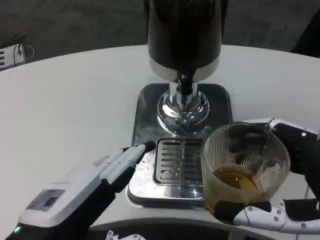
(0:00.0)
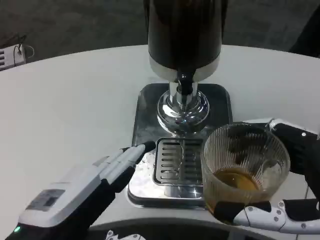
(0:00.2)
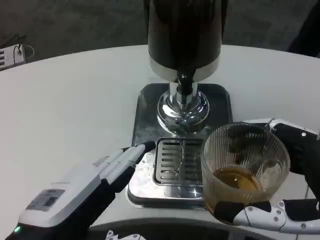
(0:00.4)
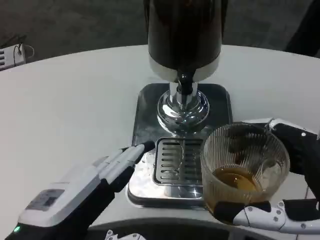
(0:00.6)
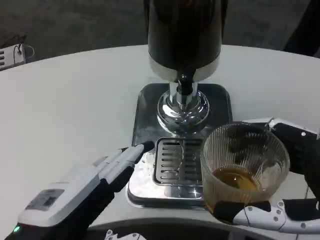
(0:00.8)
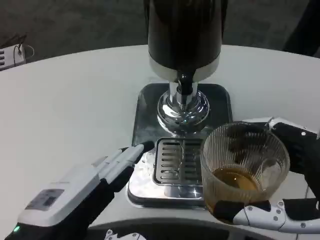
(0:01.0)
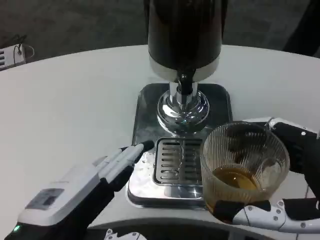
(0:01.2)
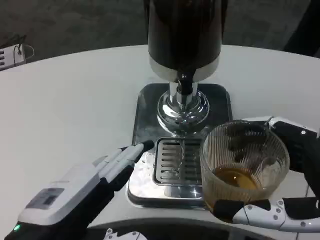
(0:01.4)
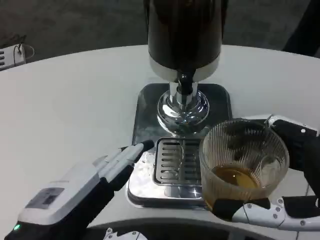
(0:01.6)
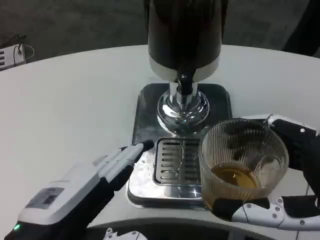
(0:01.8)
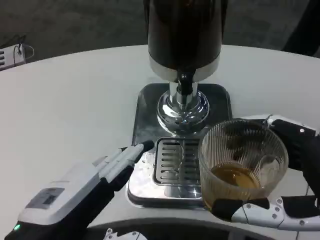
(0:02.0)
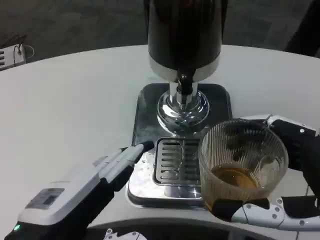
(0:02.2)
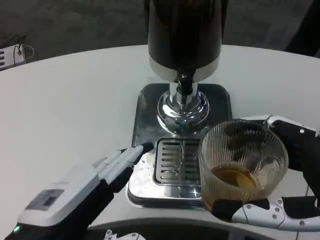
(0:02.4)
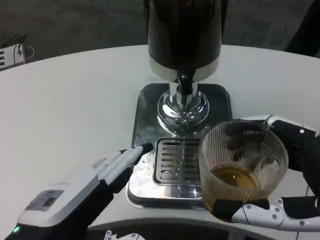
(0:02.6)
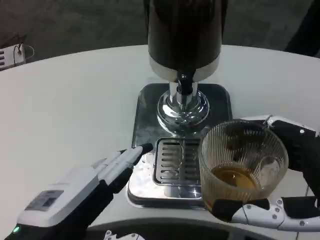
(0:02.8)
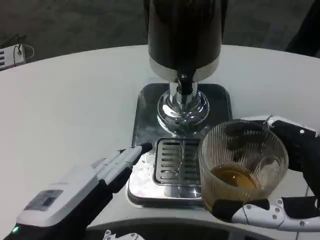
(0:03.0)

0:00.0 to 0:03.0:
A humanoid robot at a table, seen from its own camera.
Task of the whole recording: Grasp the cup under the faucet to collect the drink, then remove the cup.
0:00.0 to 0:03.0: Neither hand changes place.

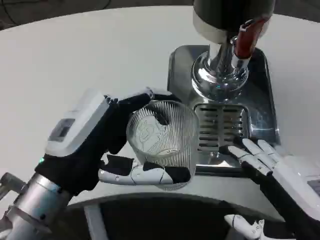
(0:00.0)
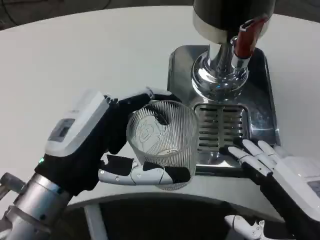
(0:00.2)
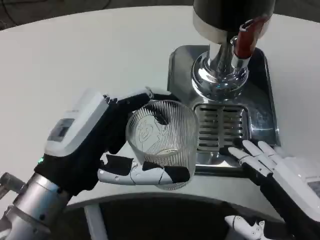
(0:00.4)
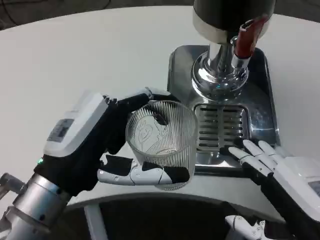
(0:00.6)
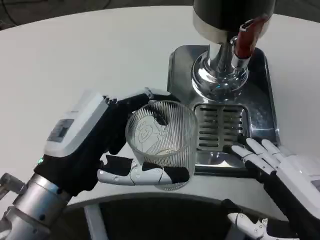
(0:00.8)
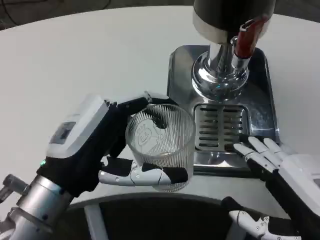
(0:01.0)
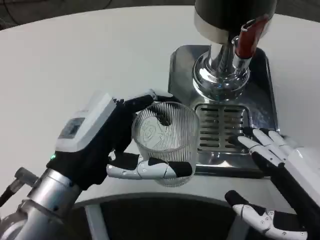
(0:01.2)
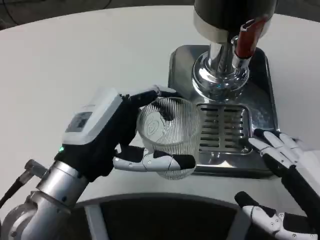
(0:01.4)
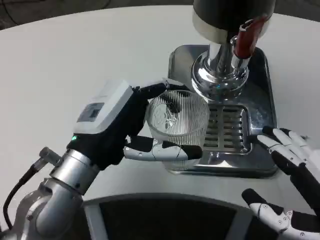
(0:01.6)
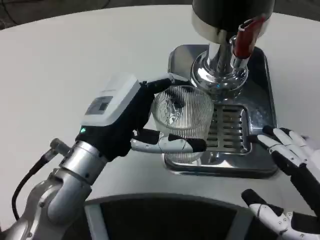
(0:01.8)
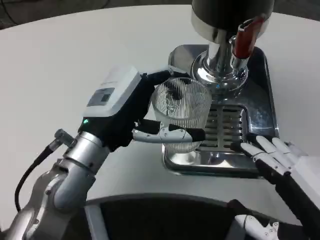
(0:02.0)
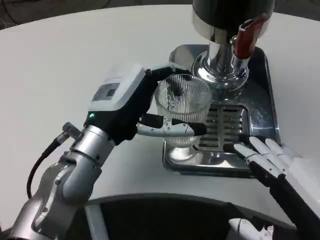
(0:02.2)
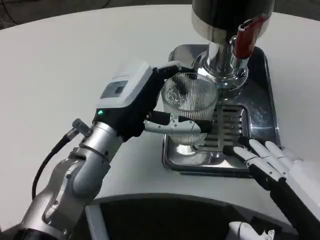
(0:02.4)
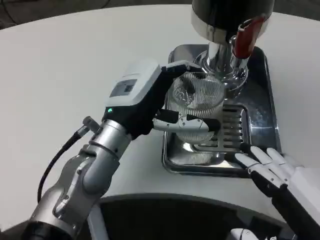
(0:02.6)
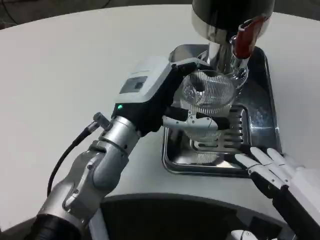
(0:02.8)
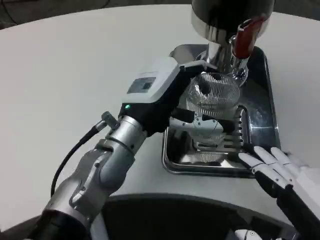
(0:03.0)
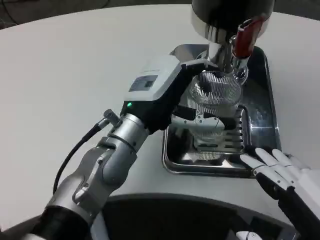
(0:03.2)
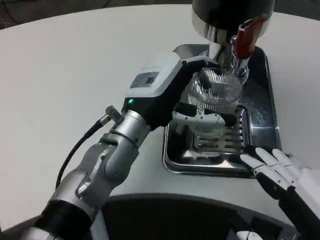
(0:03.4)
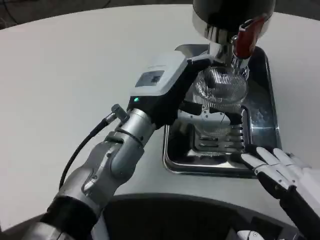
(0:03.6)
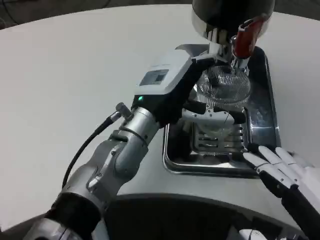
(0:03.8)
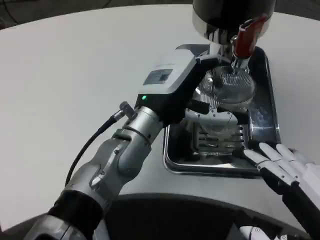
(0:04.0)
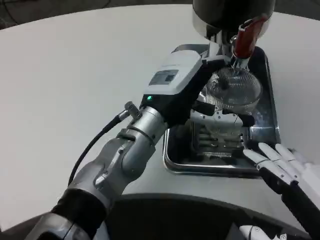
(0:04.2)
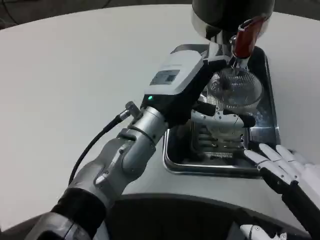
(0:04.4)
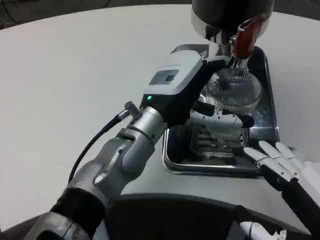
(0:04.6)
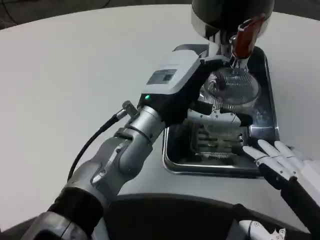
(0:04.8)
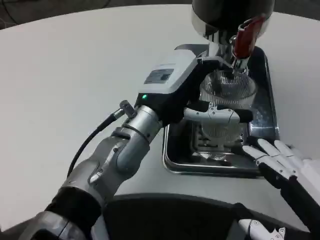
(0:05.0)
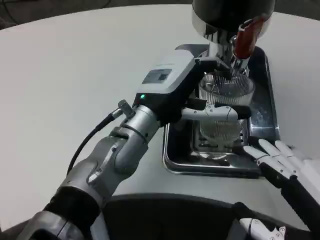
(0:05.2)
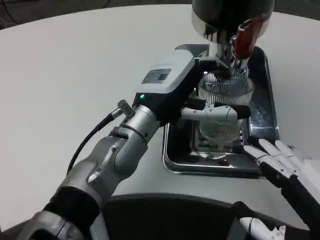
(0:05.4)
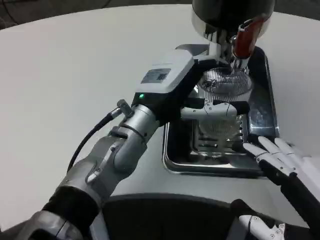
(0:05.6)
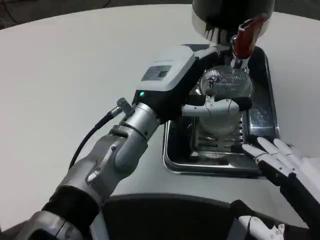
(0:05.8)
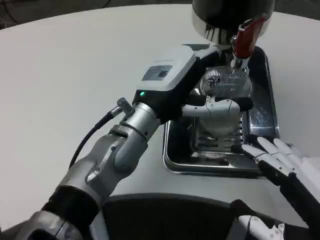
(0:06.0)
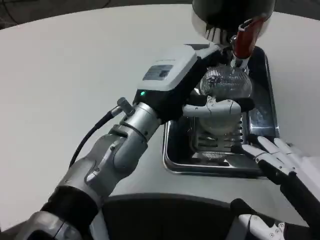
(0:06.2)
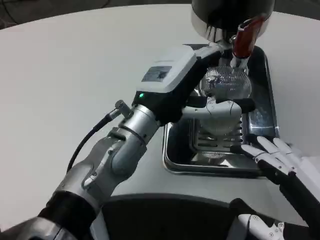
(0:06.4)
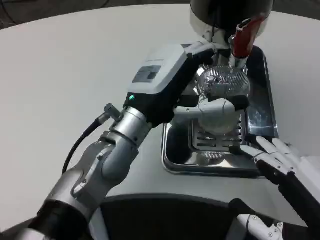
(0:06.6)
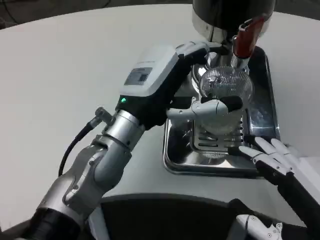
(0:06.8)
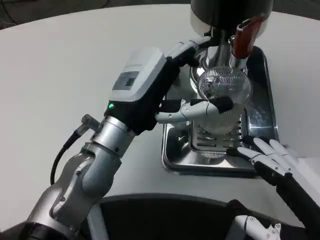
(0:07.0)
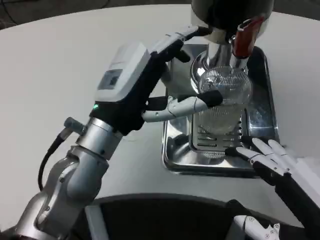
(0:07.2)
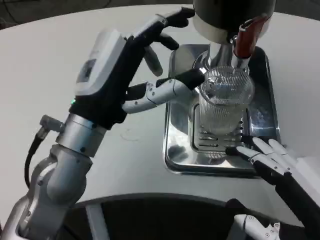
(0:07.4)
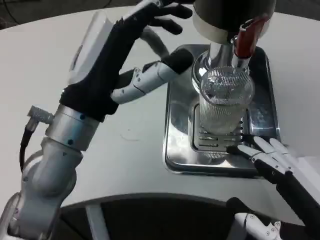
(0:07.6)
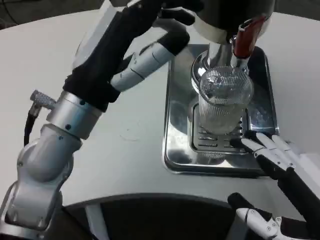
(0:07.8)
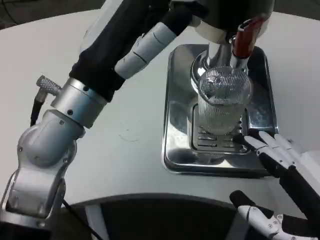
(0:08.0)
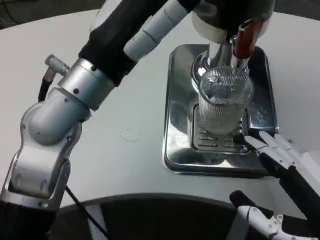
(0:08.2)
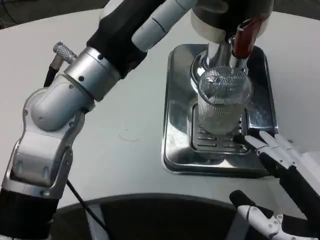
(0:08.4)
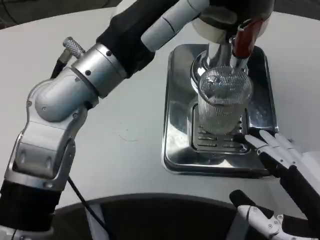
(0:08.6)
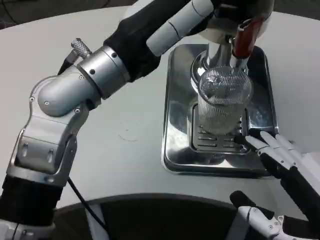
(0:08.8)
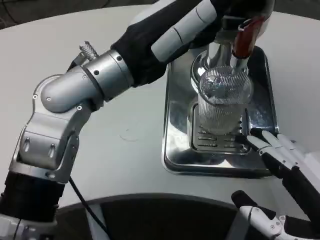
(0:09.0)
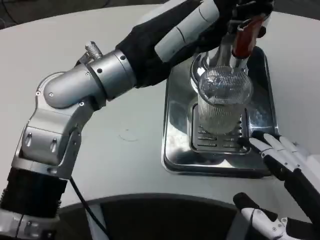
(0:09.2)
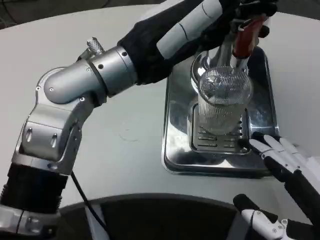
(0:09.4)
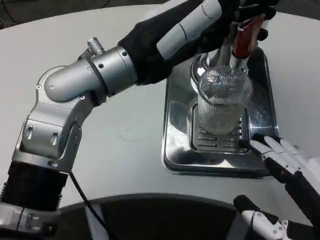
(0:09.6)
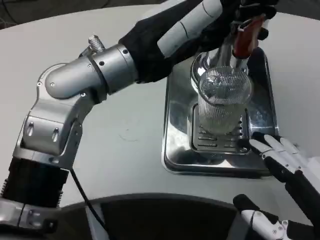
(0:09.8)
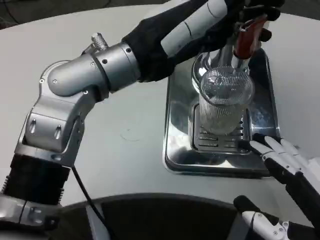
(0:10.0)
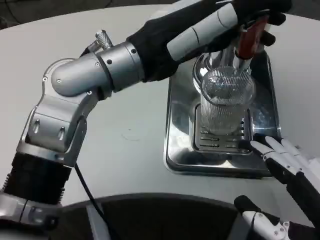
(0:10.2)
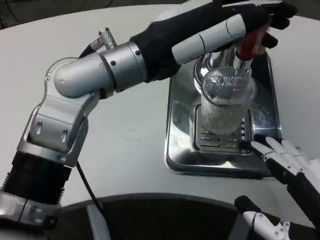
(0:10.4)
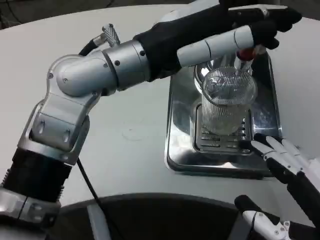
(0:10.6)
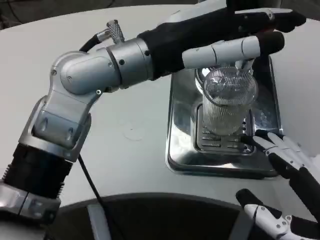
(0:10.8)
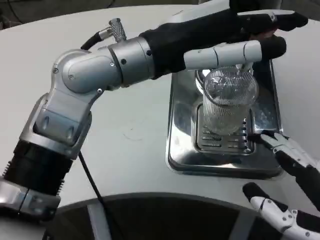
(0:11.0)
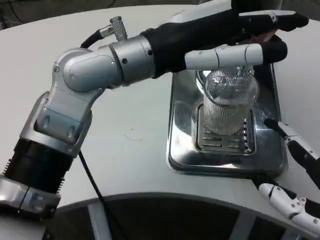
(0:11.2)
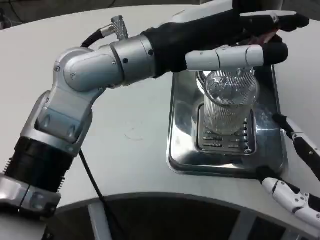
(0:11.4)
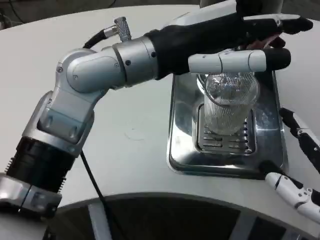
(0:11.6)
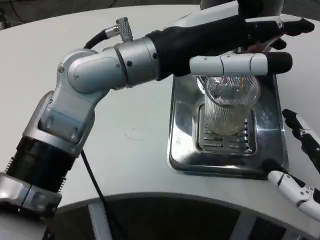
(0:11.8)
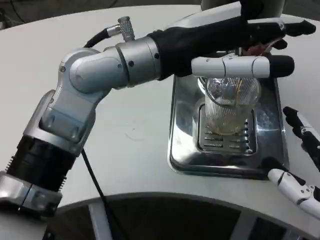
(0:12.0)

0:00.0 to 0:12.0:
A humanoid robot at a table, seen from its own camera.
Task of the whole recording: Grasp the cup under the faucet to collect the drink, then remove the cup.
0:00.0 to 0:01.6: The left hand ends up roughly 5 cm from where it was.
0:01.6 to 0:03.0: The left hand shifts some 10 cm forward and to the right.
0:06.0 to 0:07.6: The left hand moves backward and to the left, roughly 10 cm.
0:07.6 to 0:09.0: The left hand heads upward, covering approximately 5 cm.

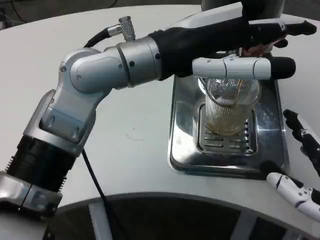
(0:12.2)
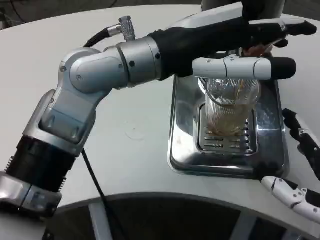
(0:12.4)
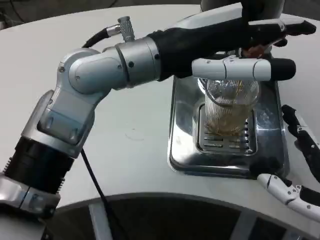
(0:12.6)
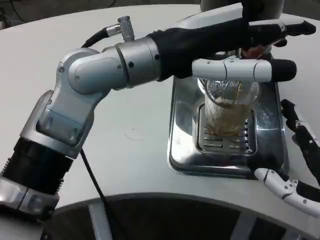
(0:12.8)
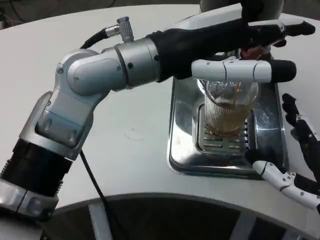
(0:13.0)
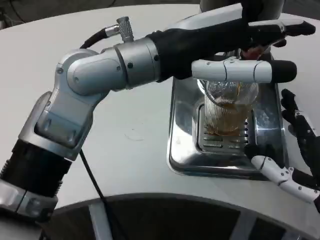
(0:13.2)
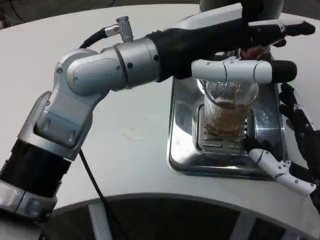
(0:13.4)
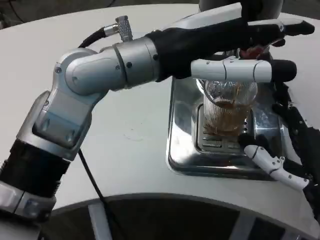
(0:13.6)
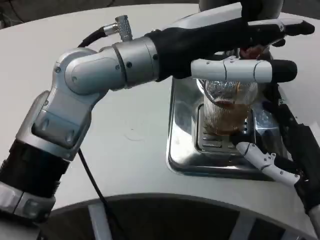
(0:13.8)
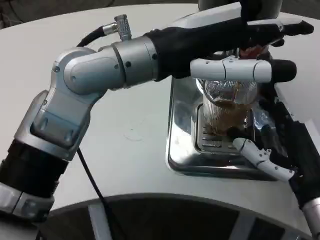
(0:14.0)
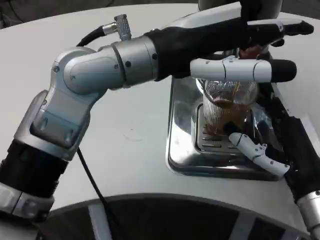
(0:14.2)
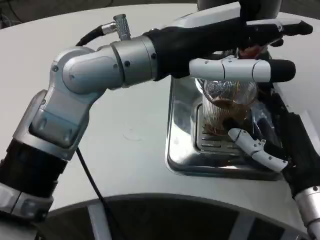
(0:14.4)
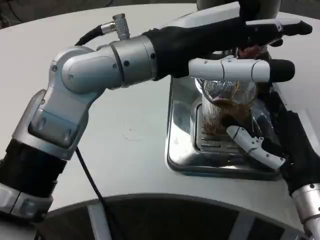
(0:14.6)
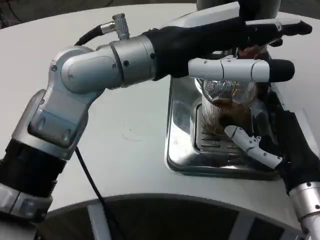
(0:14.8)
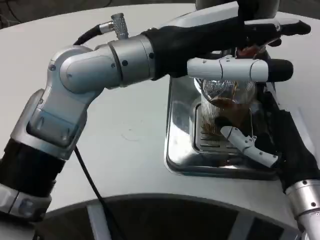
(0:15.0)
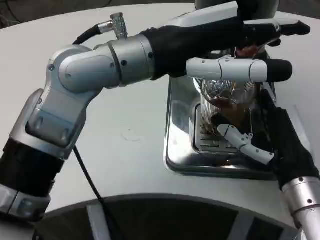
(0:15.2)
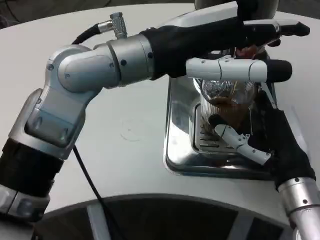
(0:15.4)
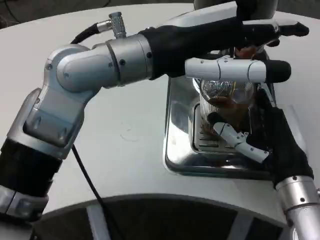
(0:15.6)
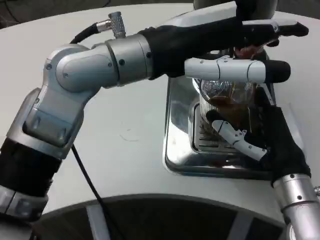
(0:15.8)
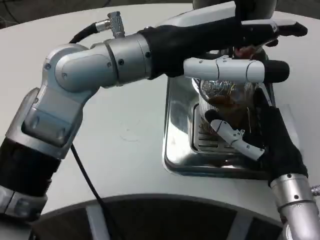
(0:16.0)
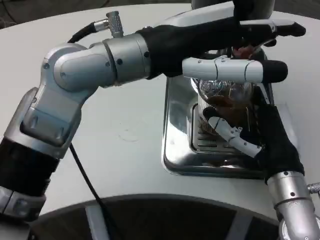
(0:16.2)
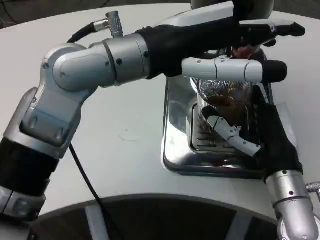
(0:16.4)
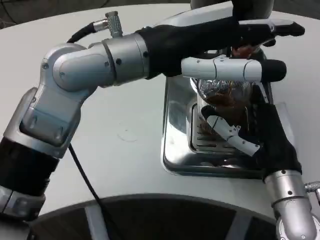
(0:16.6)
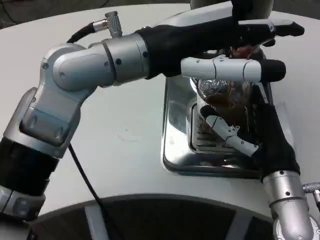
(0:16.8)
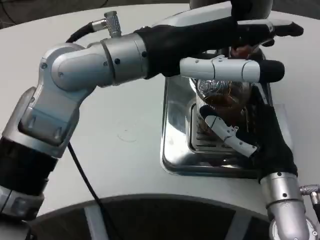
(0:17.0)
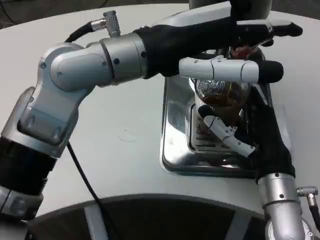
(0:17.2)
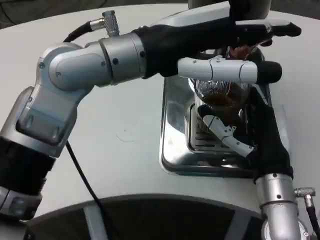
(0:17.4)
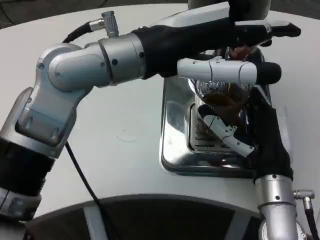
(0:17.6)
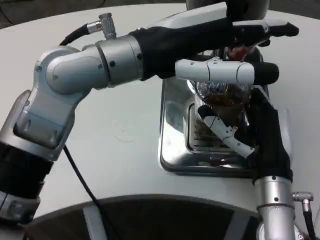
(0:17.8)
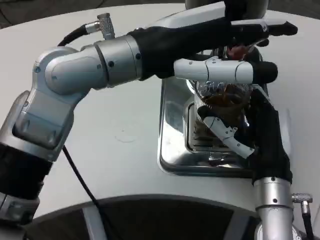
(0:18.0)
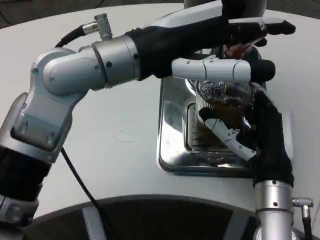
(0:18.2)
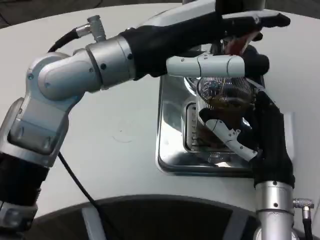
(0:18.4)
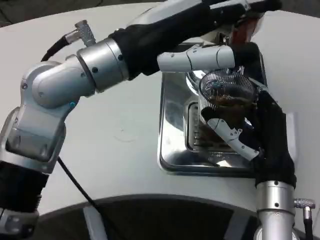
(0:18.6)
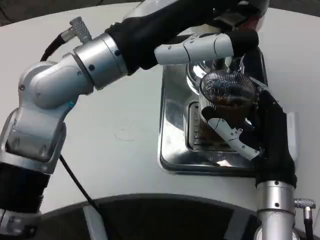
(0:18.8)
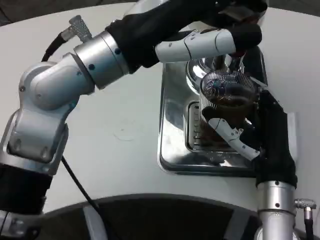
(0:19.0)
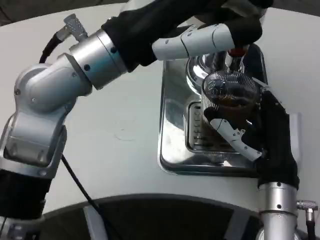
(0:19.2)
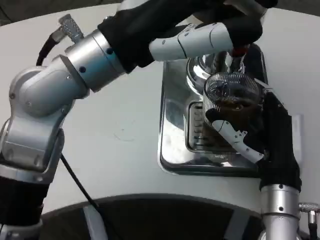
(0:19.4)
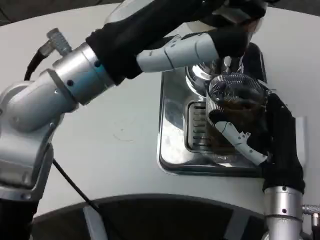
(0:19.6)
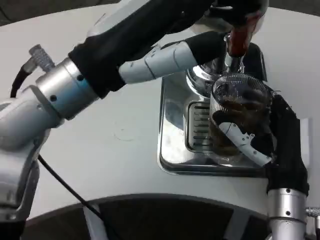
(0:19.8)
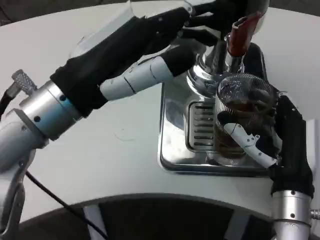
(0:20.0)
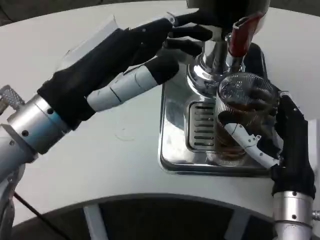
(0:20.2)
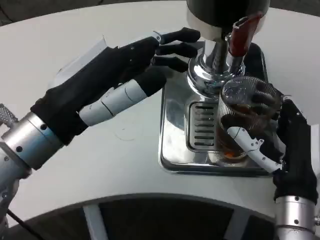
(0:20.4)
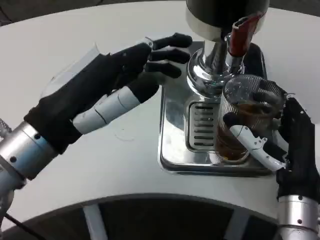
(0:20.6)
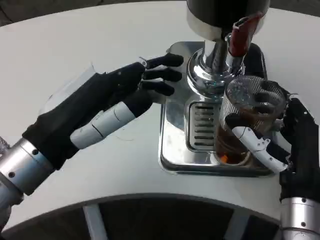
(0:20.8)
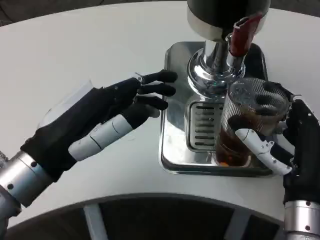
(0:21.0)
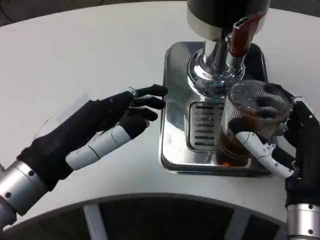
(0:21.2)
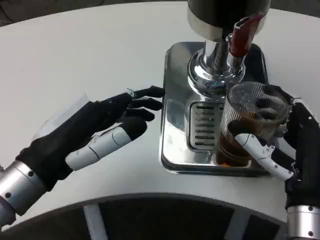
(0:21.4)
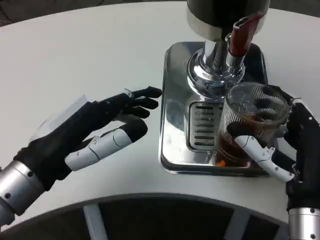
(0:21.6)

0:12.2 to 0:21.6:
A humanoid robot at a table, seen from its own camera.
Task of the whole recording: Grasp the cup under the faucet to collect the drink, then remove the cup.
0:12.2 to 0:13.8: The right hand shifts some 10 cm forward.
0:18.4 to 0:20.0: The left hand shifts roughly 5 cm backward.
0:20.0 to 0:21.6: The left hand shifts roughly 5 cm downward.
